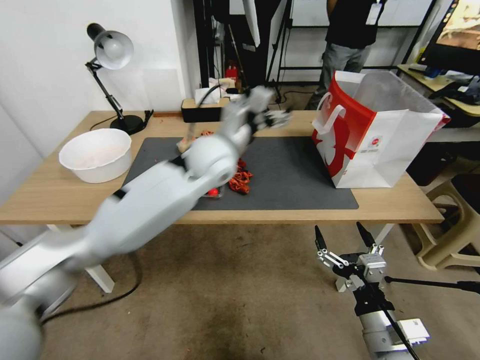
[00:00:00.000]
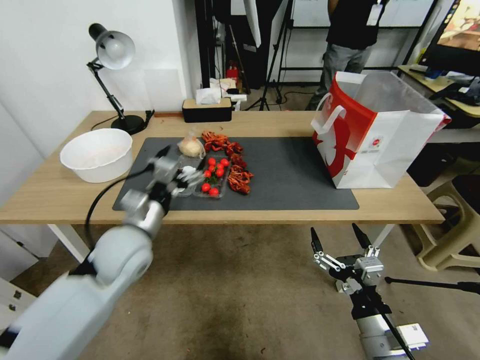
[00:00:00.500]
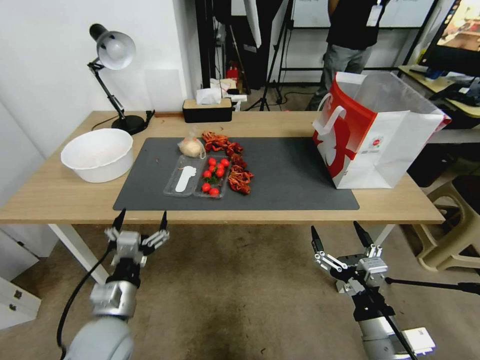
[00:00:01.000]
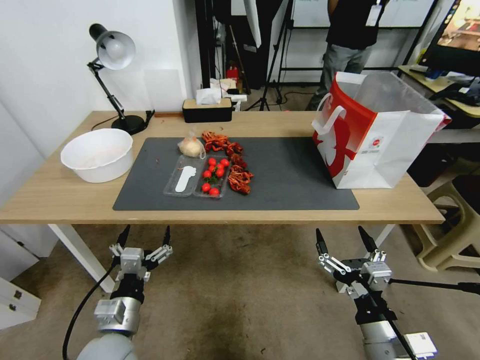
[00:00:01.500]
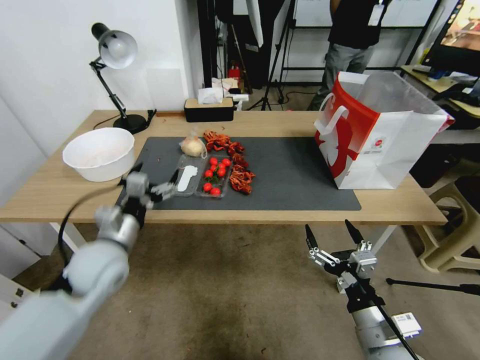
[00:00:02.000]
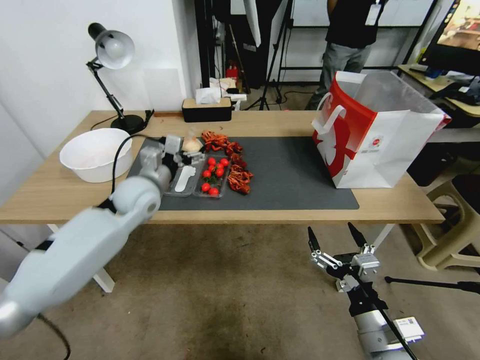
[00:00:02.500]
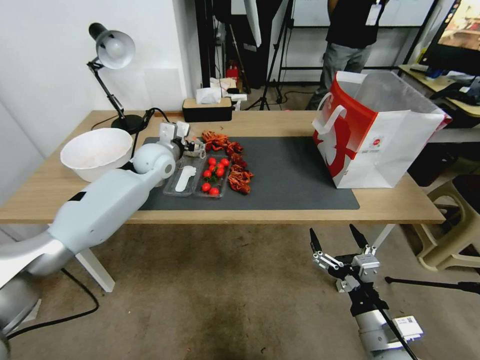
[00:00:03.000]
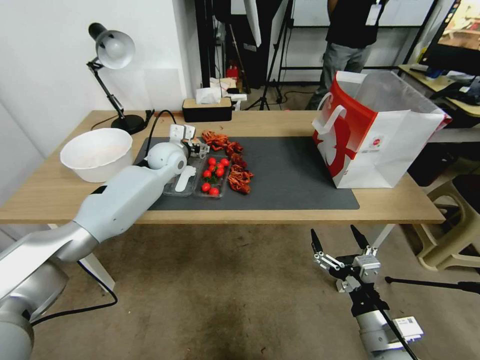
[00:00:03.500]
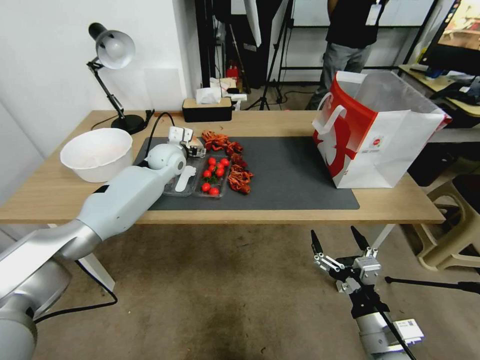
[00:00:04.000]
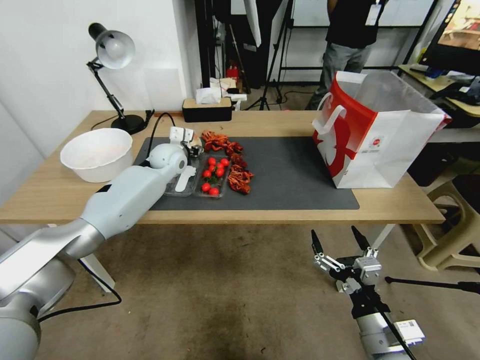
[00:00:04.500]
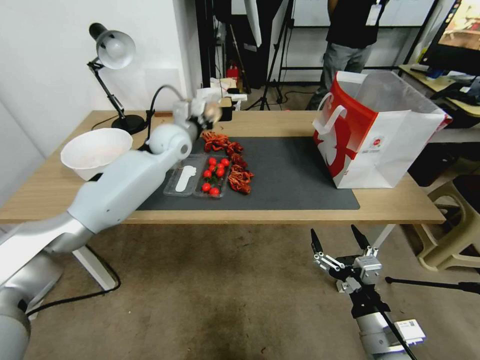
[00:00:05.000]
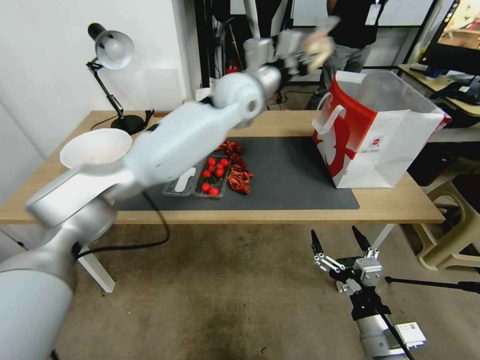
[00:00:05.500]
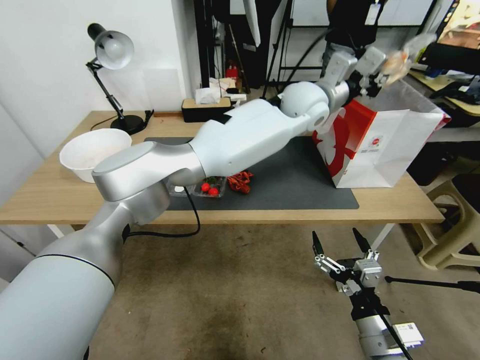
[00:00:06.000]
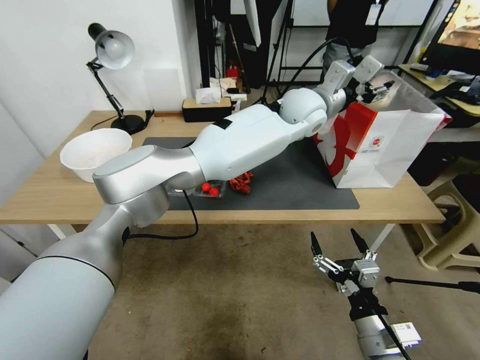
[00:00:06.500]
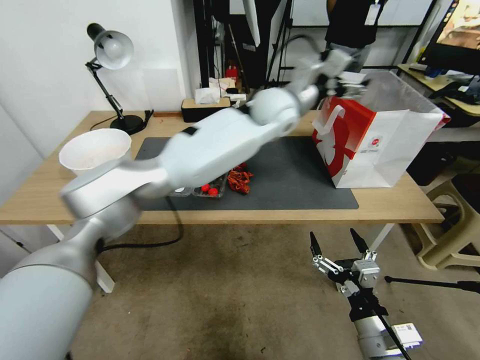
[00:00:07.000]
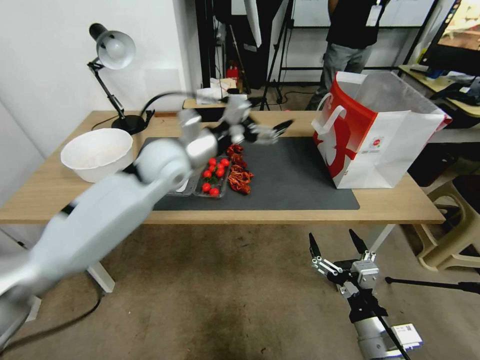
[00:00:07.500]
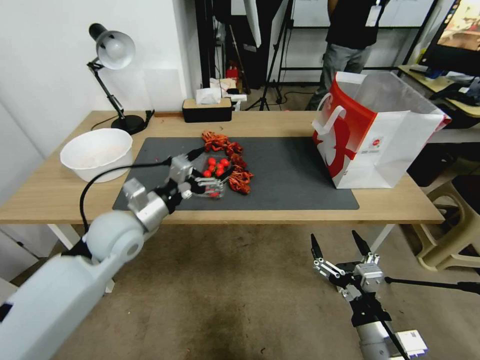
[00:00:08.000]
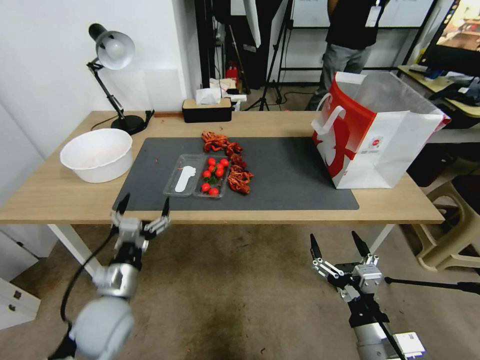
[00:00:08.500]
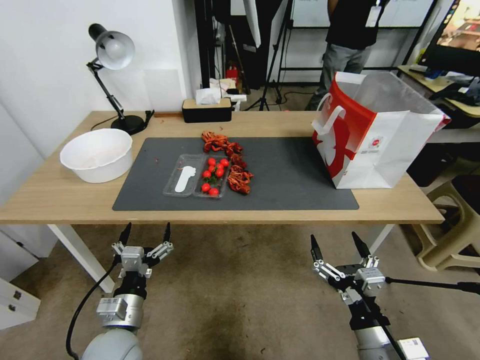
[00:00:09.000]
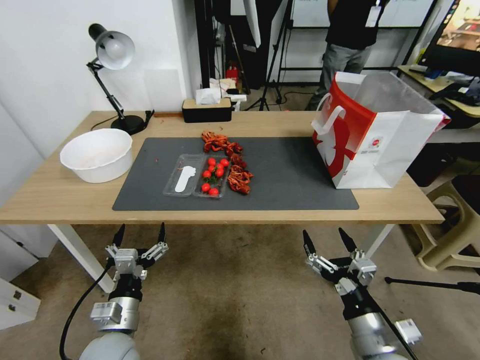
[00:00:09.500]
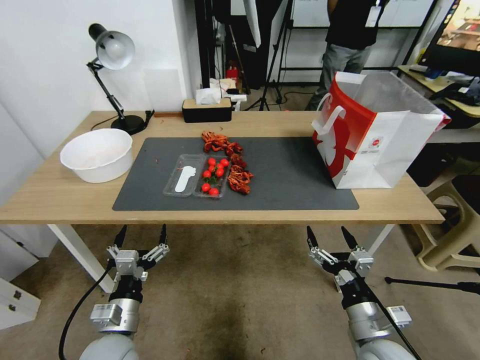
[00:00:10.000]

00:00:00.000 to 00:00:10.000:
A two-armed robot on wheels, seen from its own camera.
00:00:00.000 to 00:00:02.000: The left gripper heads to the left, backward and downward, covering approximately 35 cm.
00:00:02.000 to 00:00:04.000: The left gripper heads forward, covering some 30 cm.
00:00:04.000 to 00:00:06.000: The left gripper heads to the right and upward, covering some 40 cm, and closes up.
00:00:06.000 to 00:00:08.000: The left gripper is displaced to the left, backward and downward by approximately 50 cm, and opens up.
00:00:08.000 to 00:00:10.000: The left gripper moves backward and downward, about 25 cm.
